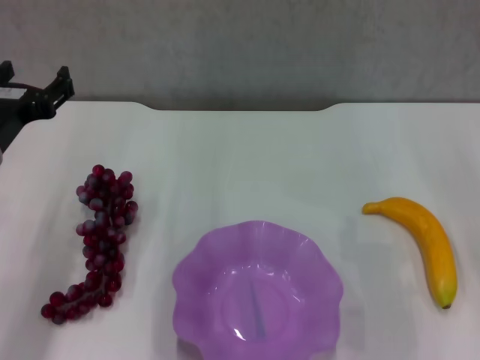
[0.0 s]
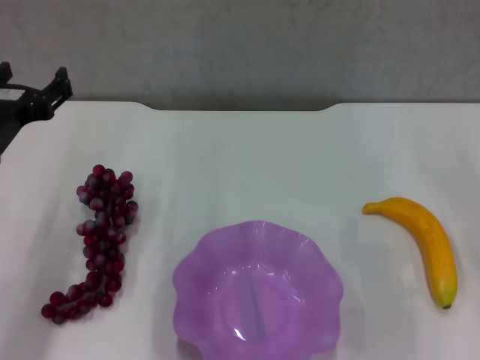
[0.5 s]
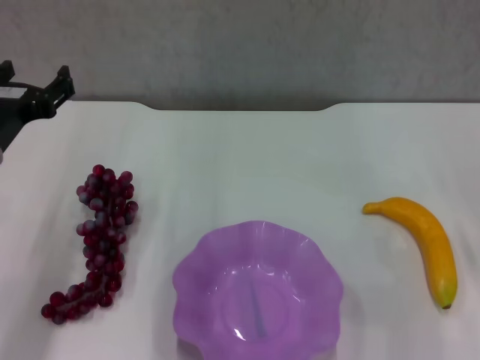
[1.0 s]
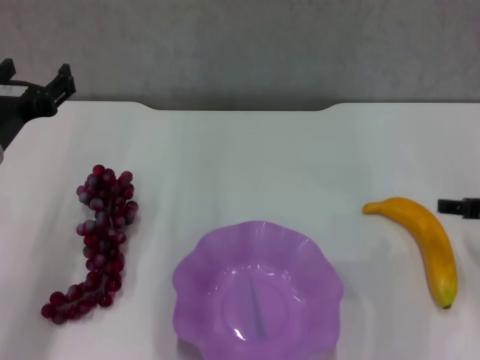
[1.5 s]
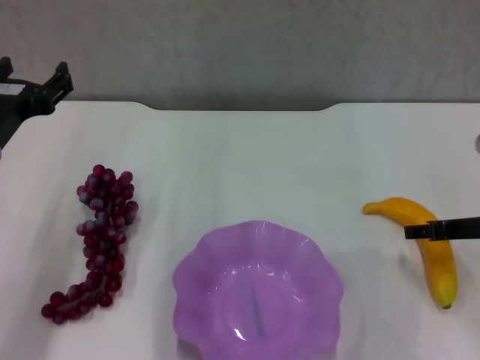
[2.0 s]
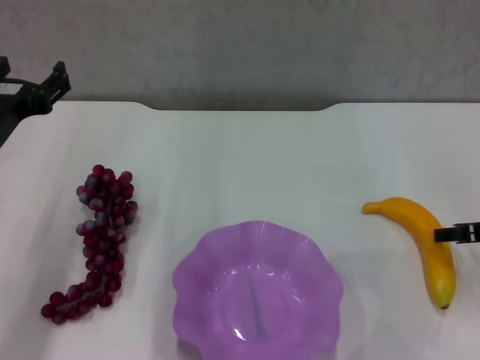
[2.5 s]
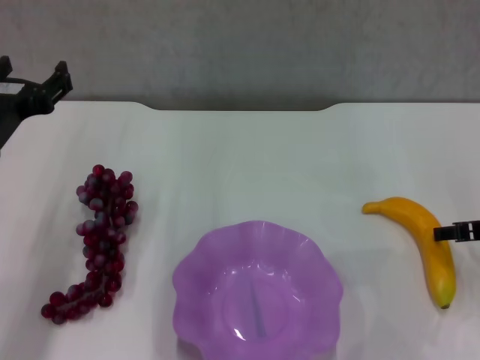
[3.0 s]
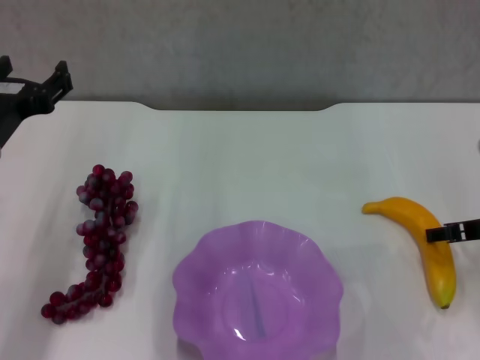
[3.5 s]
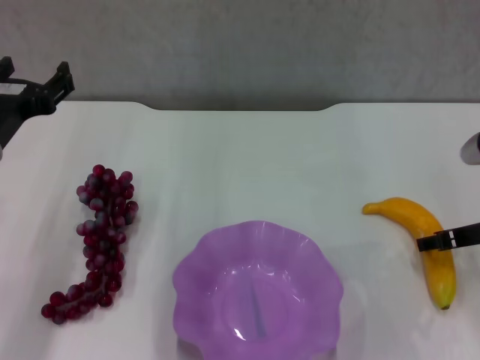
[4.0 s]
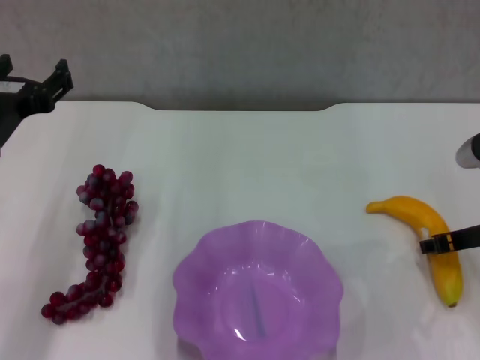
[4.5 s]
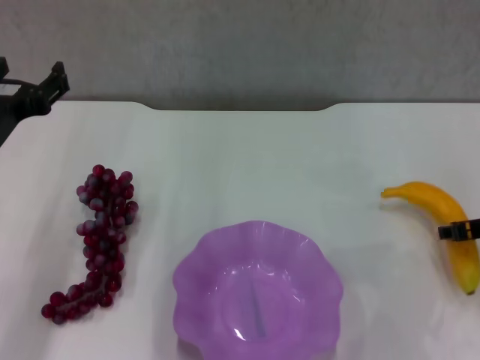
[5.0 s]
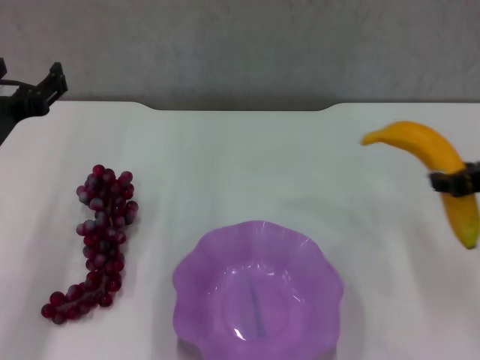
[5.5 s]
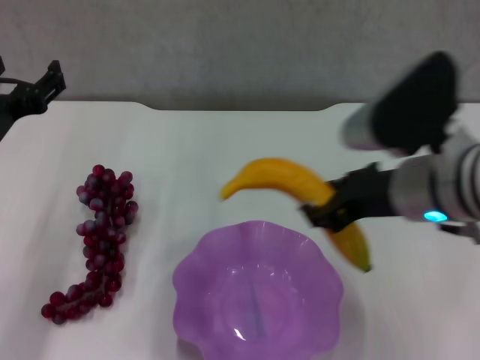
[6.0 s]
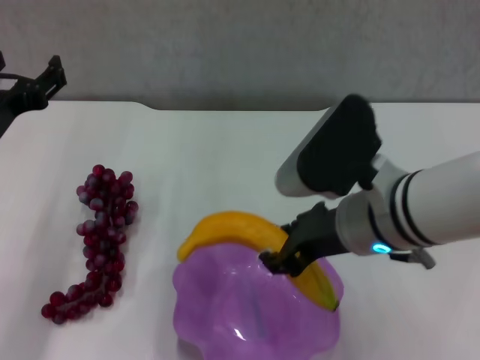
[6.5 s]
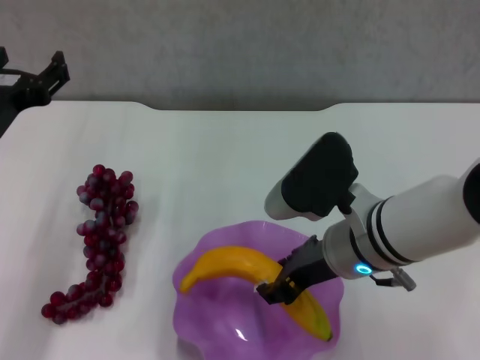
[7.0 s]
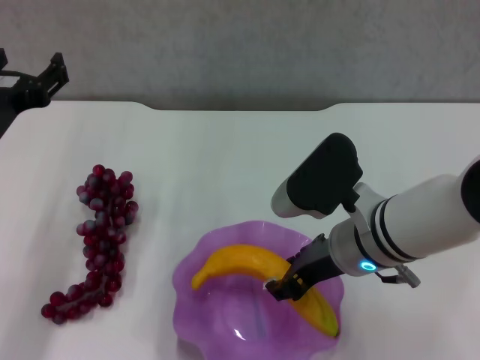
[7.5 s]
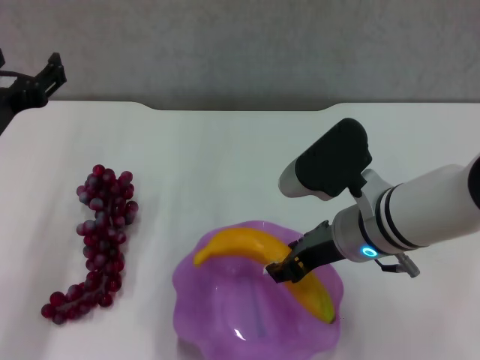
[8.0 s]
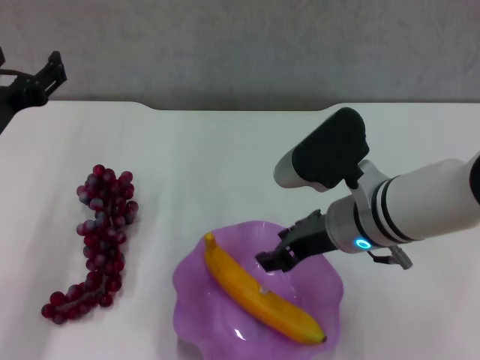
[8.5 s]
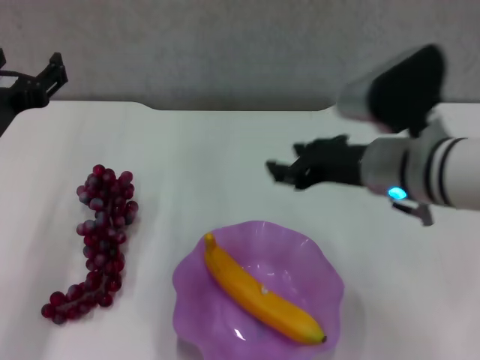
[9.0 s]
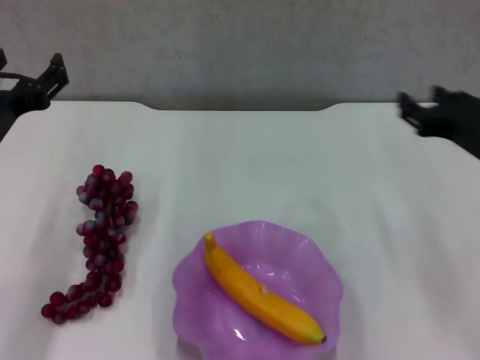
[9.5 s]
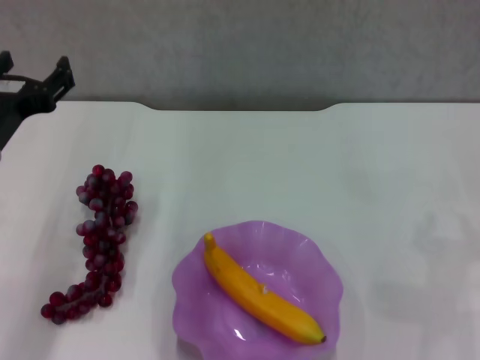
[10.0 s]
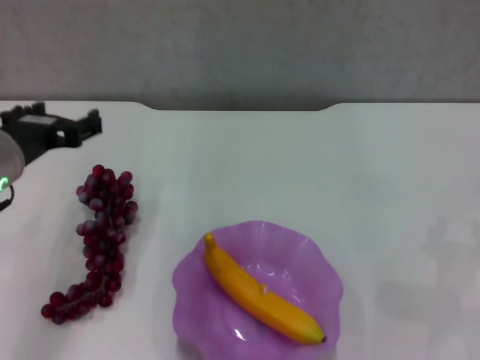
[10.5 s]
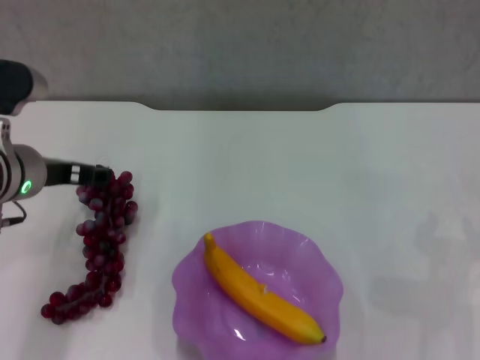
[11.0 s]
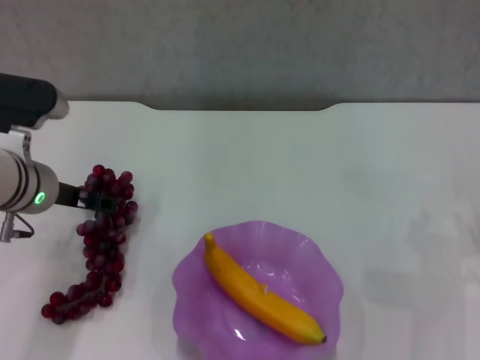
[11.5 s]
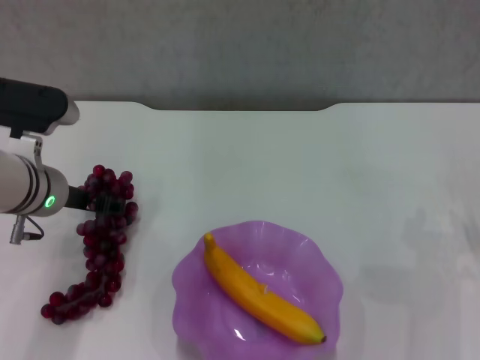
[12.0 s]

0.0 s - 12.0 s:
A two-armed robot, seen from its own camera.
Step, 0.0 s - 4.5 s: Grasp the banana with right gripper.
Step, 5.0 s - 8.0 s: Place the banana in the purple plate with right gripper.
0.0 s - 2.0 s: The right gripper travels downward by approximately 5 cm.
2.0 s - 4.0 s: The grippers move only a little.
4.0 s - 6.0 s: The right gripper moves to the left and upward, some 15 cm, and closes its fingers.
6.0 s - 8.0 s: The right gripper goes some 5 cm downward.
8.0 s - 10.0 s: The right gripper shifts some 25 cm to the right.
10.0 s - 12.0 s: The left gripper is displaced forward by some 5 cm.

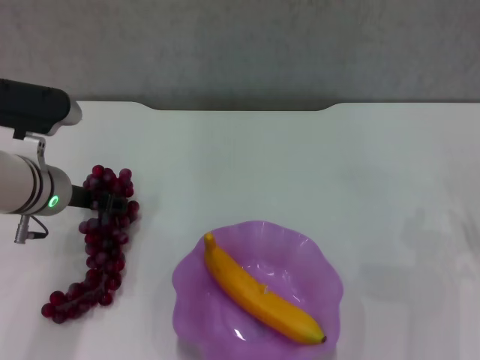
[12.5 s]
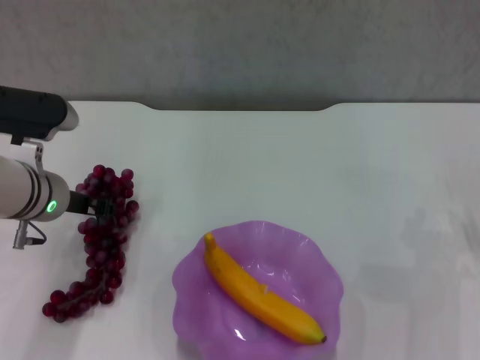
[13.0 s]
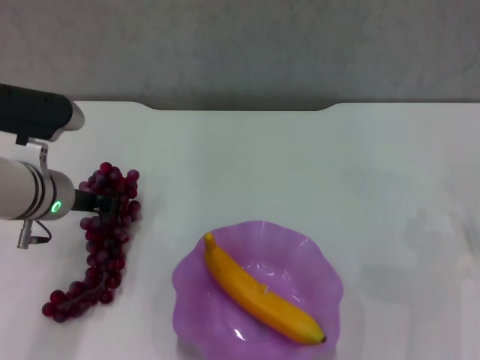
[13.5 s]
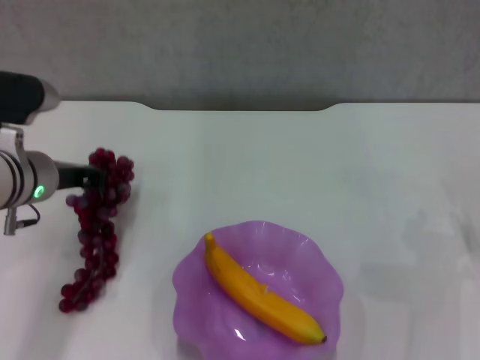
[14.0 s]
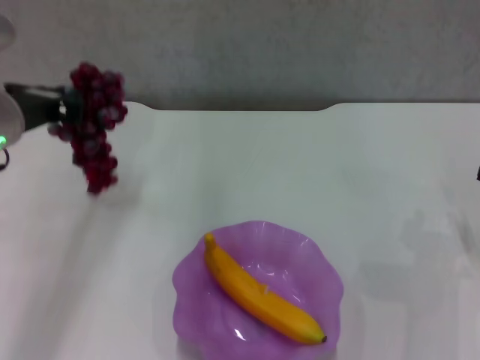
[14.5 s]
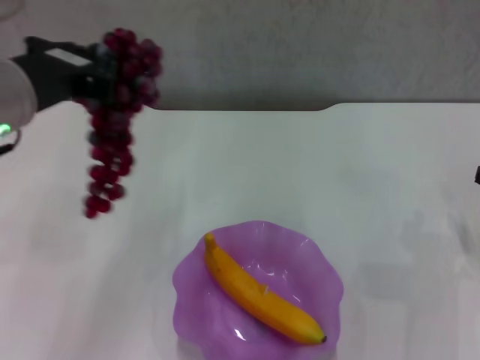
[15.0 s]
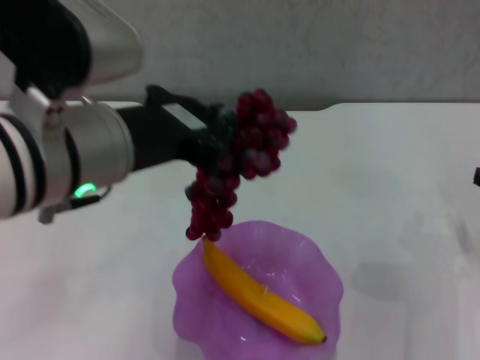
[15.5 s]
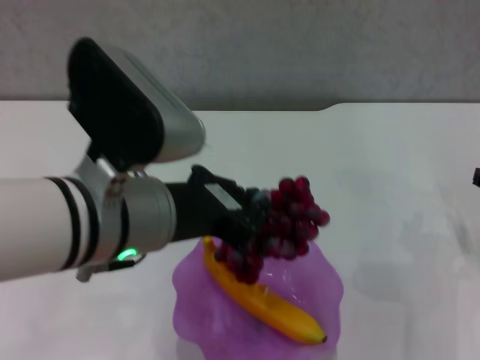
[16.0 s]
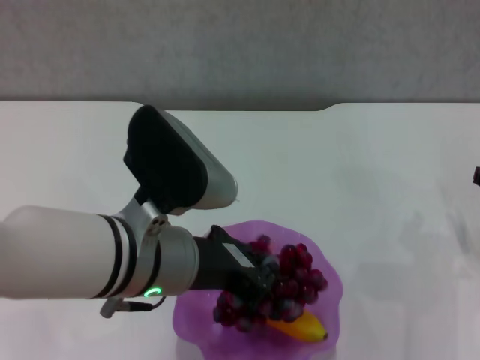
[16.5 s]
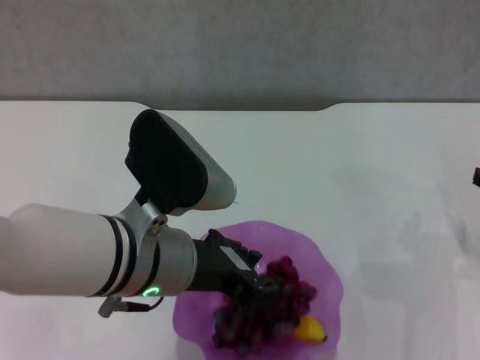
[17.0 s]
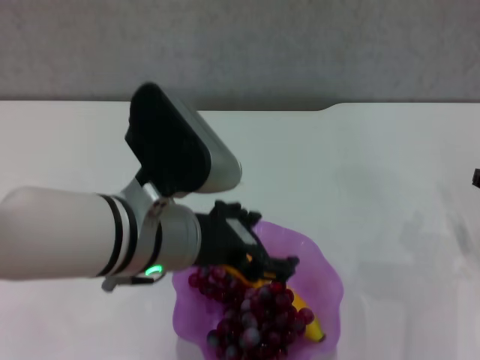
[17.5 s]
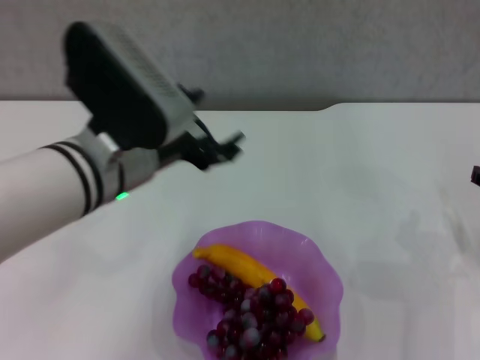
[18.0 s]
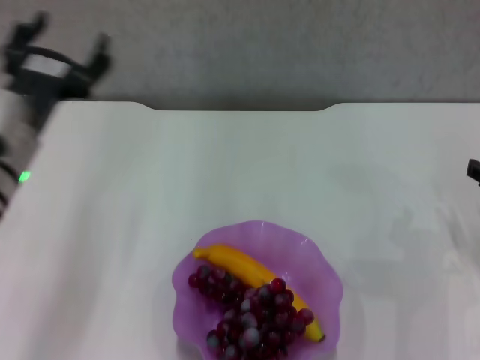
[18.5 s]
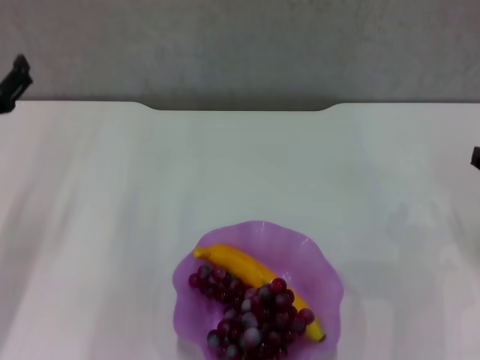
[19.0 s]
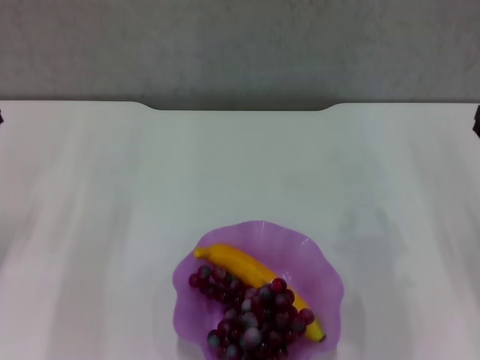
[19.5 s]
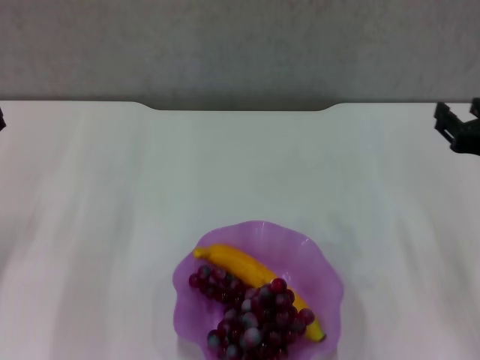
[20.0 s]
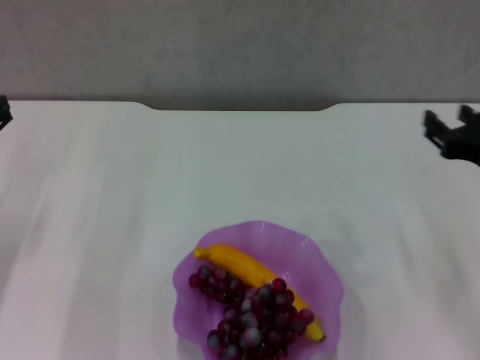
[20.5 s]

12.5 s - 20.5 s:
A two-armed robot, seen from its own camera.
Step, 13.5 s - 17.5 s: Place the grape in the purple plate with left gripper.
12.5 s - 14.5 s: The left gripper moves upward, some 10 cm, and closes up.
14.5 s - 16.5 s: The left gripper travels to the right and backward by about 15 cm.
16.5 s - 18.5 s: The left gripper moves to the left and forward, some 15 cm, and opens.
18.5 s - 20.5 s: The right gripper shifts some 10 cm to the left and upward. The left gripper shifts about 10 cm to the left.

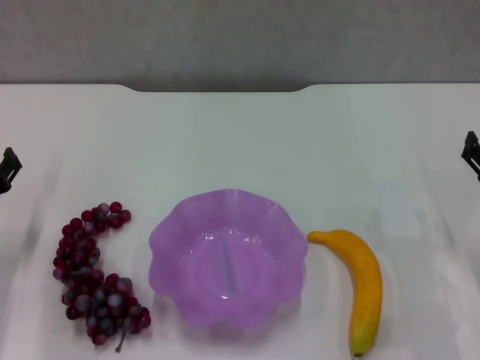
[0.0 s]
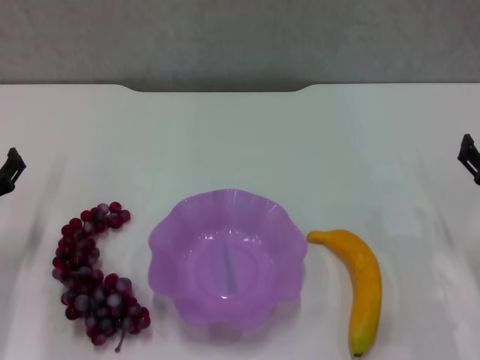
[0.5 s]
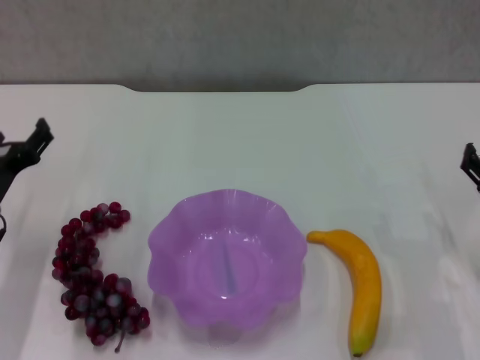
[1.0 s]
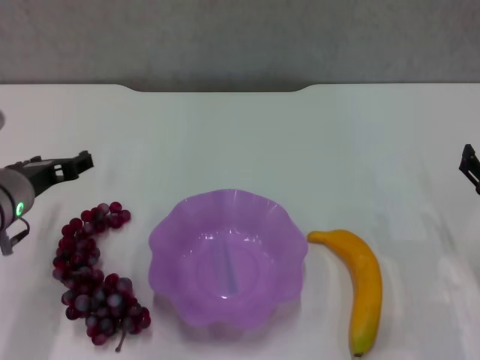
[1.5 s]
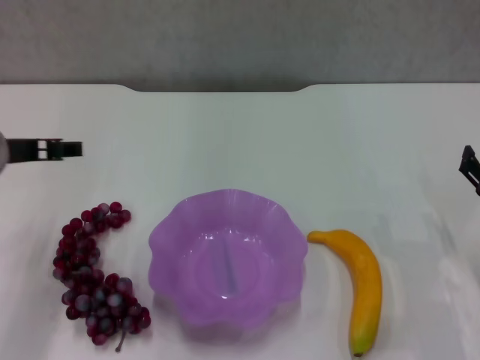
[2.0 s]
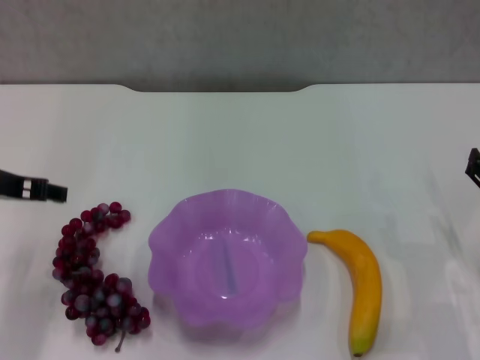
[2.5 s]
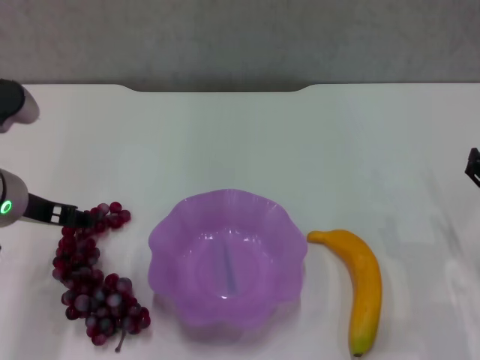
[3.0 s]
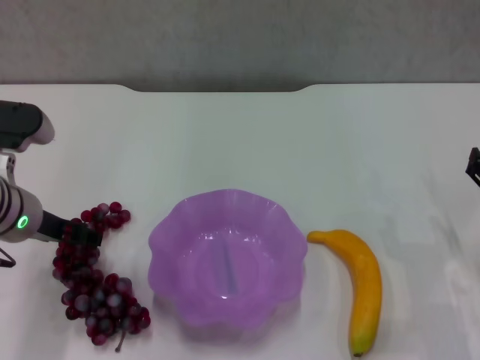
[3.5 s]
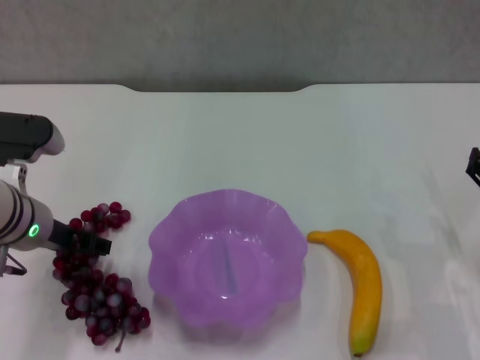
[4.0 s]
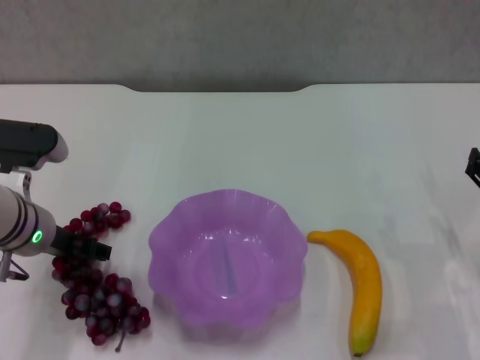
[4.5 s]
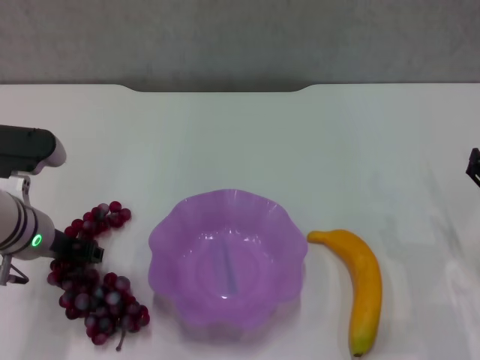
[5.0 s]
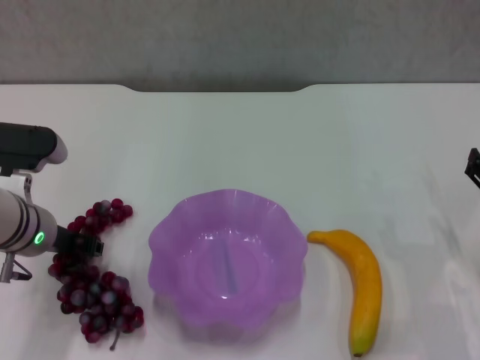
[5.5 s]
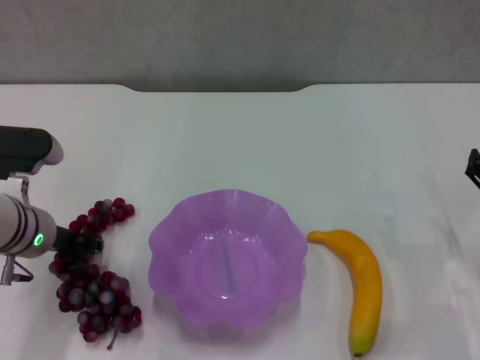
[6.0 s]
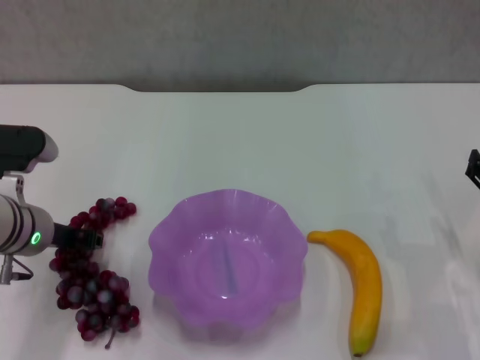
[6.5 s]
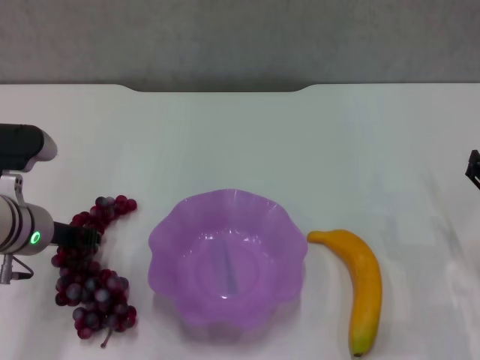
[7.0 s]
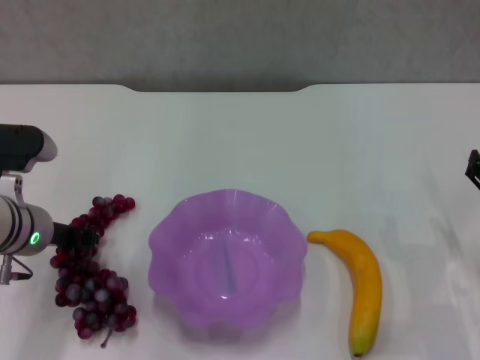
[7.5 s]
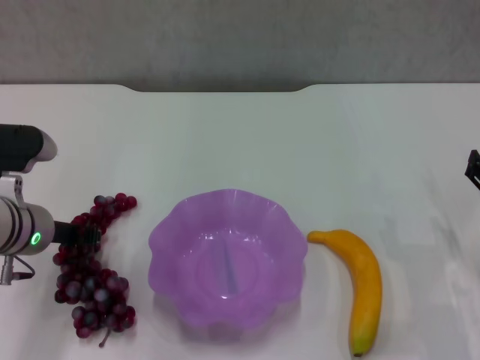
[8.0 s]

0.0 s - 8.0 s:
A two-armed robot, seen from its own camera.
Step, 0.0 s - 6.0 s: Grasp the grape with left gripper.
0.0 s - 2.0 s: The left gripper goes roughly 15 cm upward and to the right.
2.0 s - 4.0 s: The left gripper is displaced downward by about 10 cm.
4.0 s - 6.0 s: The left gripper closes.
6.0 s - 8.0 s: The grippers stay close to where they were, moving slightly.
